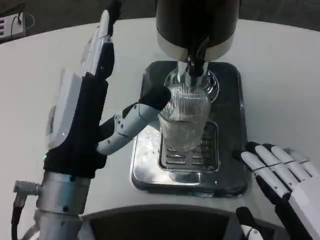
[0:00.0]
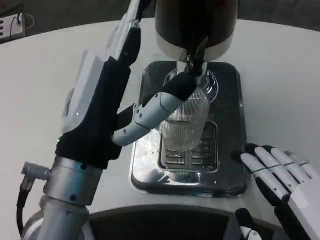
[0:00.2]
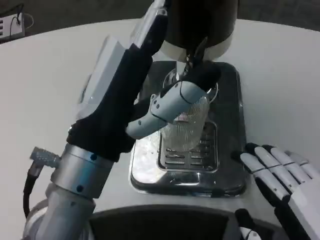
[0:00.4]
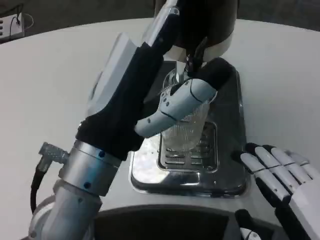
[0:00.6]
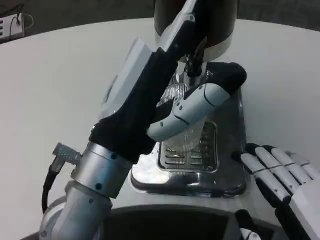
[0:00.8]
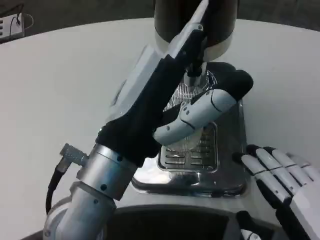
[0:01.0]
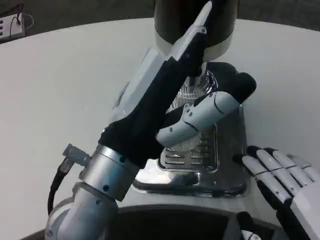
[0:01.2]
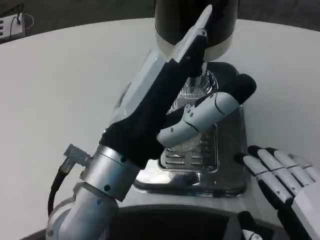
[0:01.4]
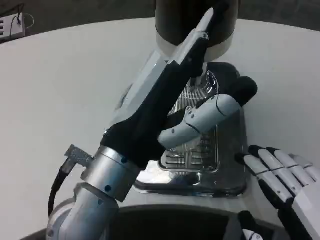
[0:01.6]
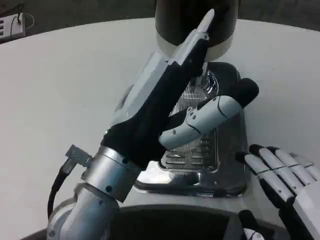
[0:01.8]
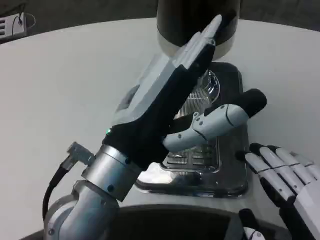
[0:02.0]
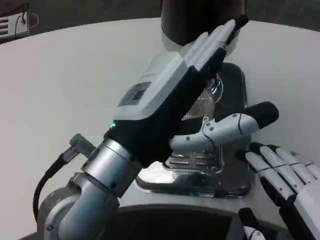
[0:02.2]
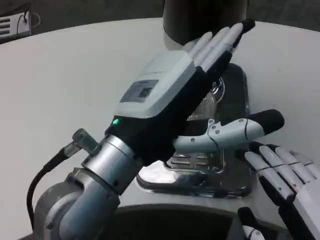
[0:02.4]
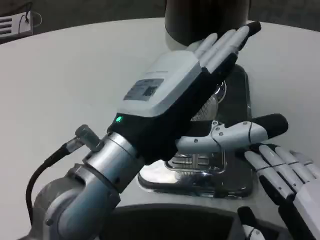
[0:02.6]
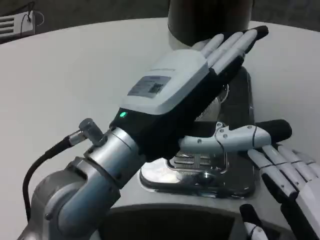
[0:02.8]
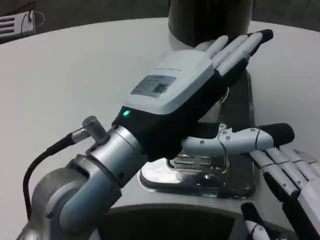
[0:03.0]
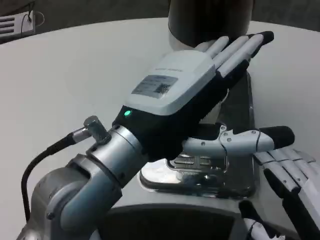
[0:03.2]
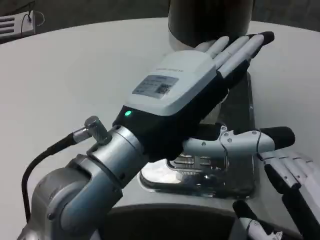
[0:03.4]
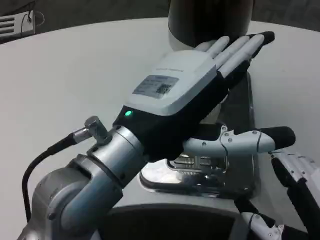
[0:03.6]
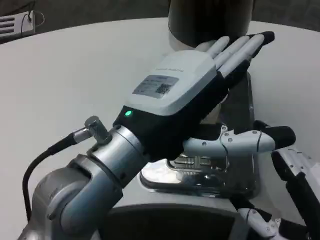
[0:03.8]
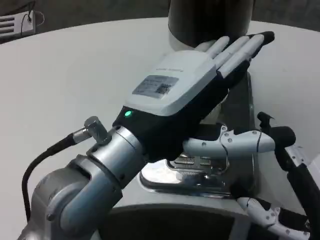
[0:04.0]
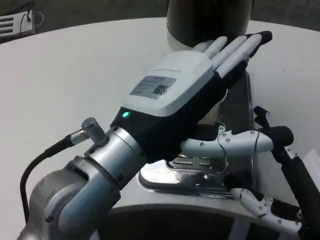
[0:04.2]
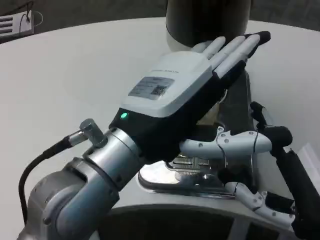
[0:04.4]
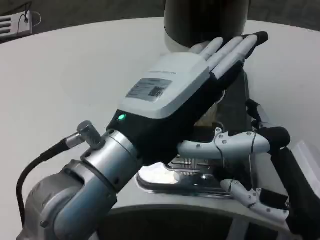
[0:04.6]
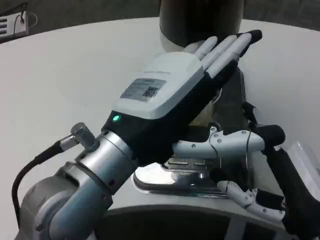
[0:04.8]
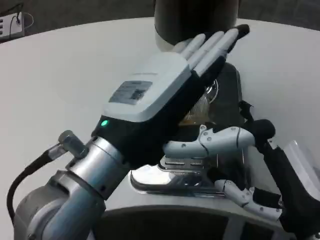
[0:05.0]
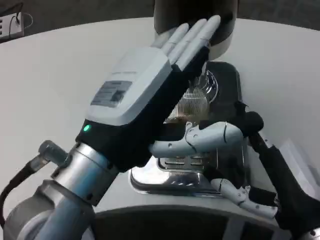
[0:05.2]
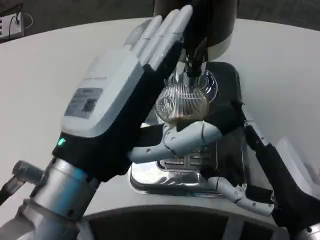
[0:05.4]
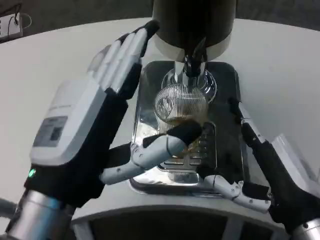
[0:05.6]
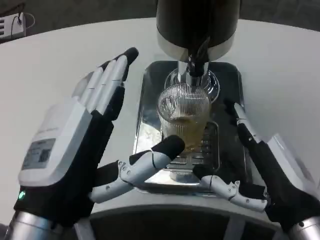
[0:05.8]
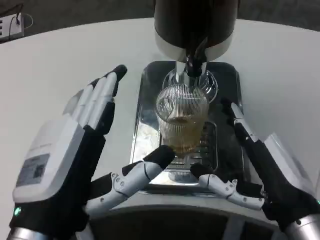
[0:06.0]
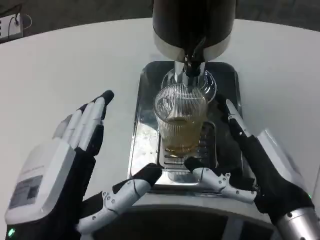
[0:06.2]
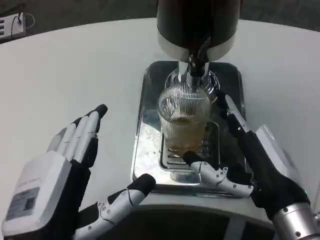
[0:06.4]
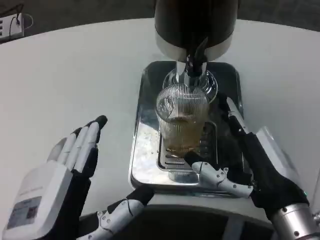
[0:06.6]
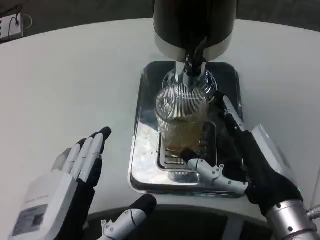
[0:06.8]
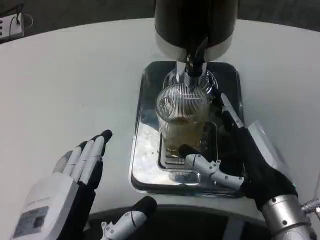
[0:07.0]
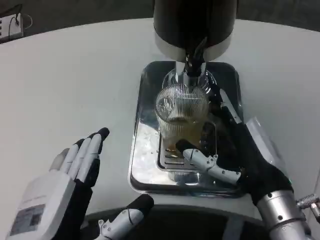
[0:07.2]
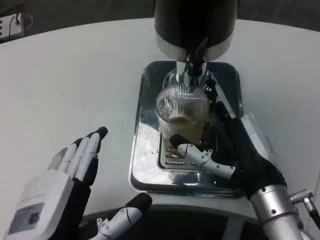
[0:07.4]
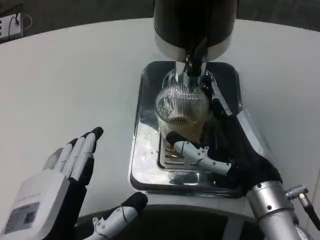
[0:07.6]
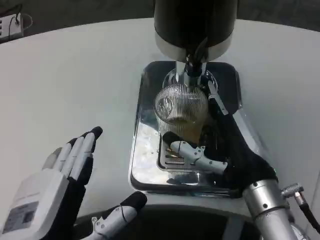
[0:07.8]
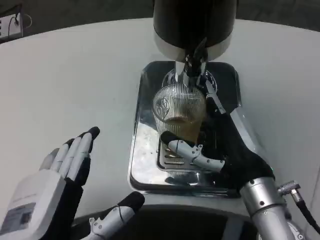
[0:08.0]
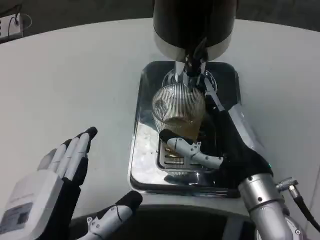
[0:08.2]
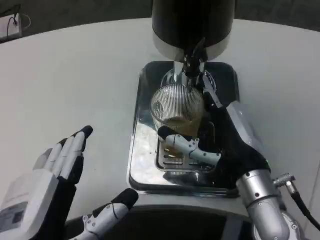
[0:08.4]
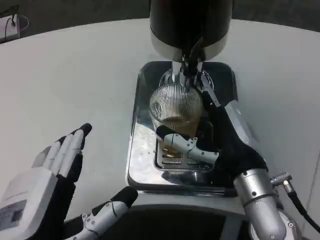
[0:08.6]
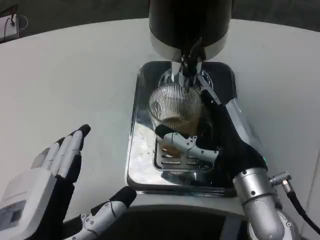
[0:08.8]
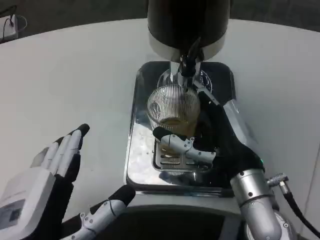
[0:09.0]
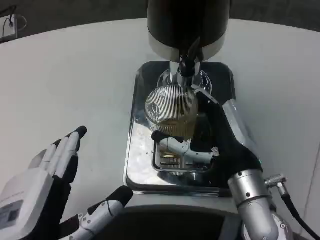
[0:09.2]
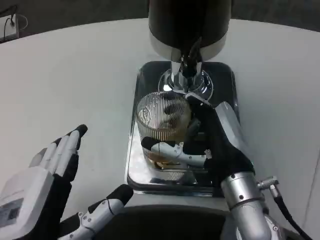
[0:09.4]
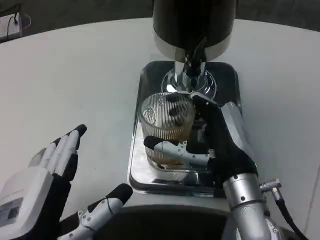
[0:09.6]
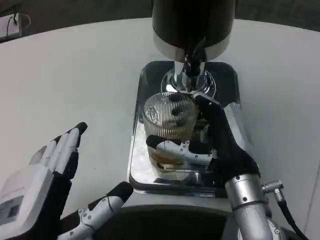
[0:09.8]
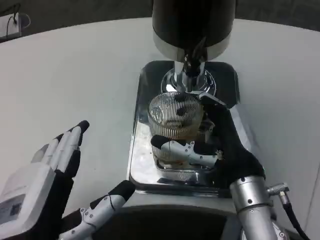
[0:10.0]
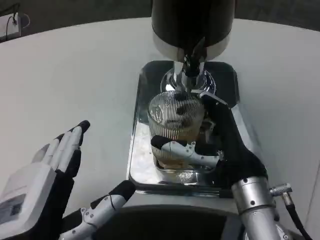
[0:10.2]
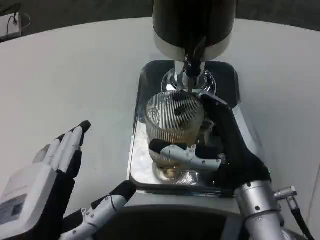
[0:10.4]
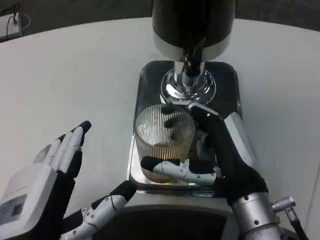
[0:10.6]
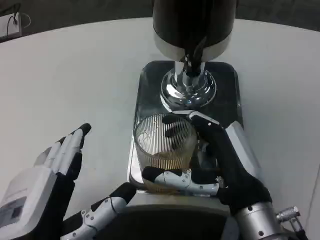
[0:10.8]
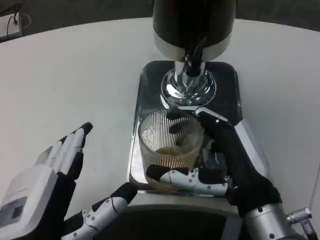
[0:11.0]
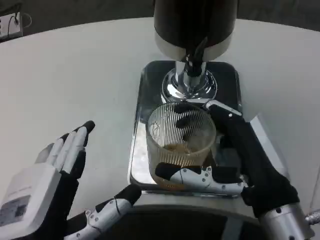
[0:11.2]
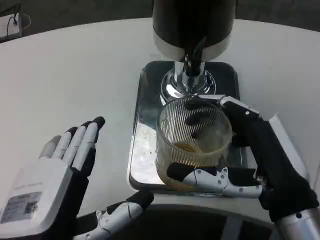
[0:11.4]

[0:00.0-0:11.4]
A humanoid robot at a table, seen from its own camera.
Task of the whole recording: Grasp the cup under the faucet to collect the drink, then remove the cup.
0:00.0 to 0:01.4: The left hand ends up some 5 cm from where it was.
0:02.8 to 0:04.2: The right hand shifts by approximately 5 cm.
0:04.2 to 0:05.6: The left hand heads downward, covering some 5 cm.
0:05.6 to 0:07.2: The right hand changes place by about 5 cm. Meanwhile the left hand goes roughly 5 cm downward.
0:08.6 to 0:10.0: The hands make only small movements.
0:10.0 to 0:11.4: The right hand travels backward by roughly 10 cm.

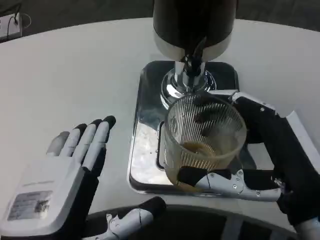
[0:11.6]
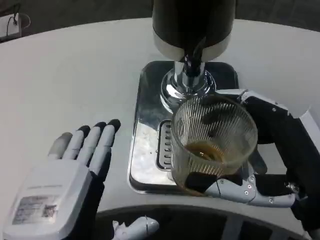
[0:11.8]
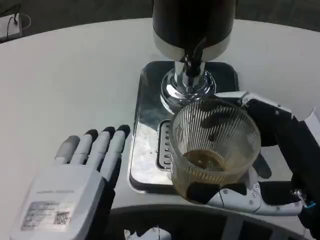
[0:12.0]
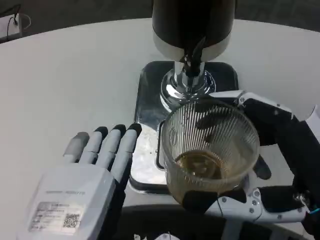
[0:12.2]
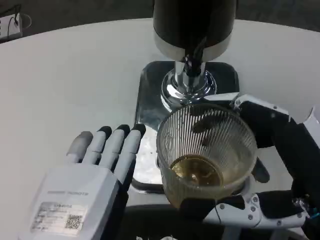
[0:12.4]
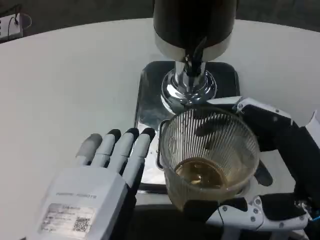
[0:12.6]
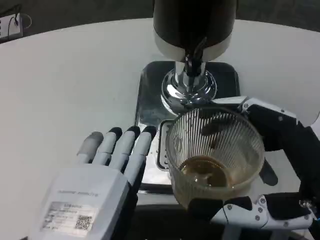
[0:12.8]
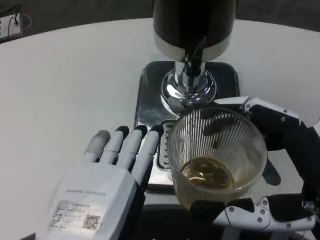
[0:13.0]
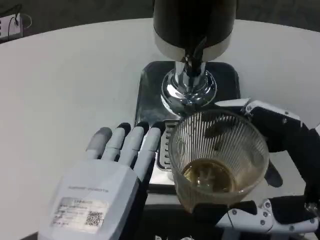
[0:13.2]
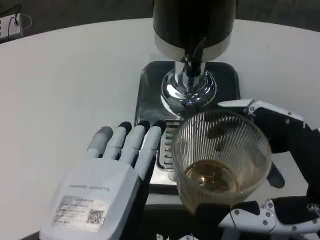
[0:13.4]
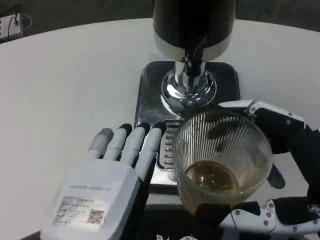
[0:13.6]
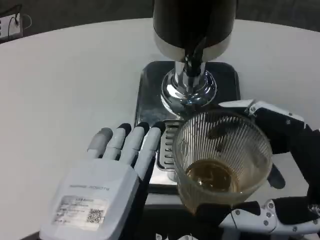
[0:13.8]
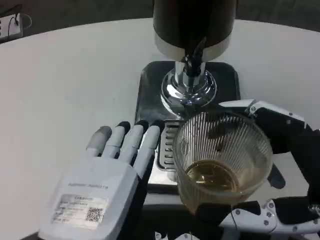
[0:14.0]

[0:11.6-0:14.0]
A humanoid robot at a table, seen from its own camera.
Task of the whole recording: Grasp the cup under the faucet to collect the drink, then remove the cup.
0:12.8 to 0:14.0: Neither hand changes place.

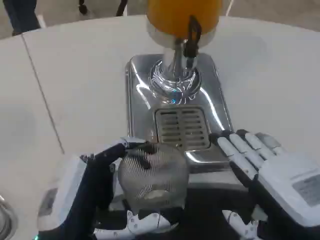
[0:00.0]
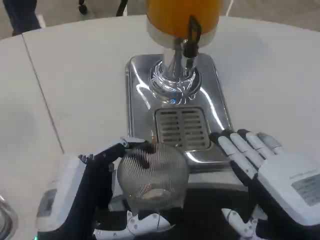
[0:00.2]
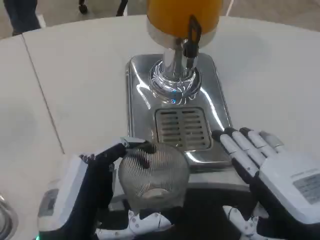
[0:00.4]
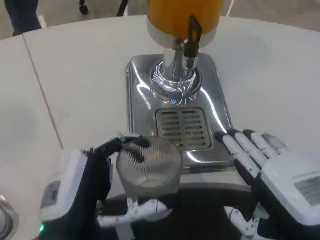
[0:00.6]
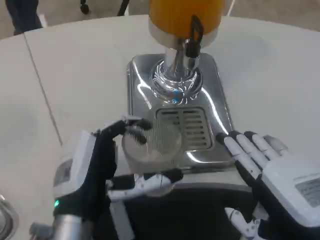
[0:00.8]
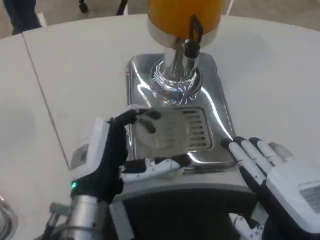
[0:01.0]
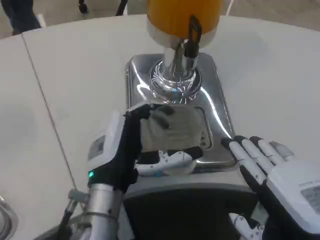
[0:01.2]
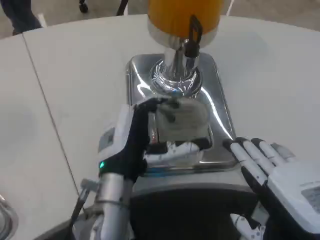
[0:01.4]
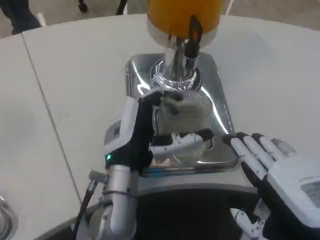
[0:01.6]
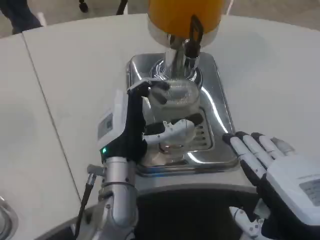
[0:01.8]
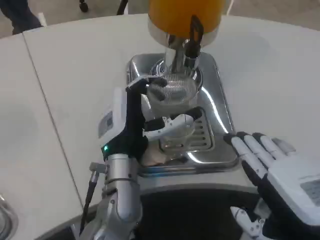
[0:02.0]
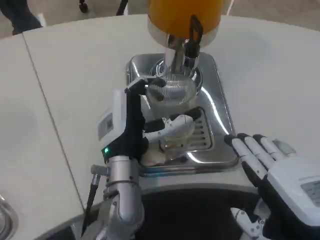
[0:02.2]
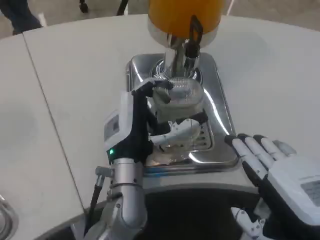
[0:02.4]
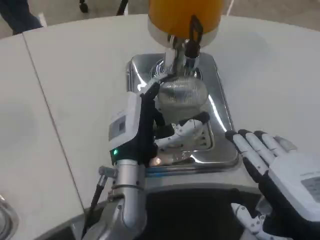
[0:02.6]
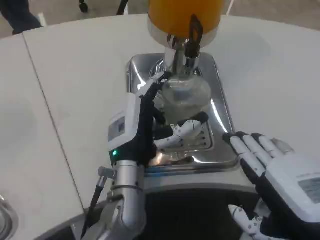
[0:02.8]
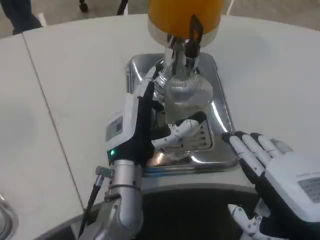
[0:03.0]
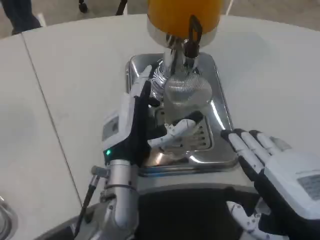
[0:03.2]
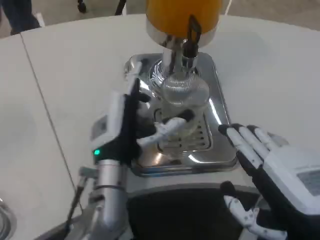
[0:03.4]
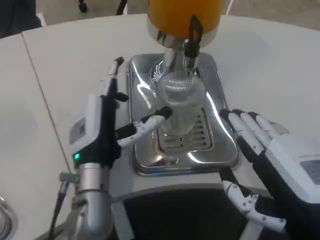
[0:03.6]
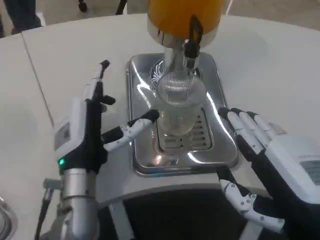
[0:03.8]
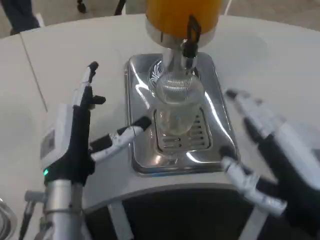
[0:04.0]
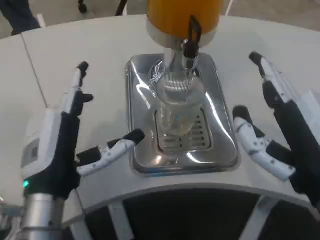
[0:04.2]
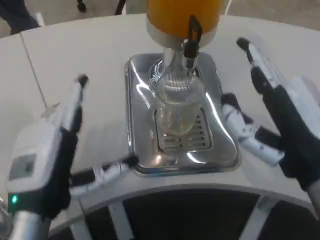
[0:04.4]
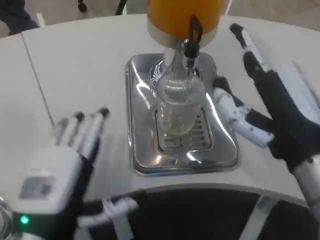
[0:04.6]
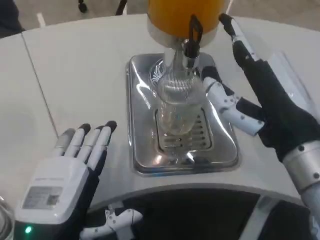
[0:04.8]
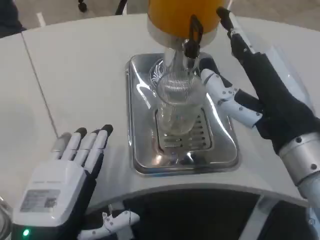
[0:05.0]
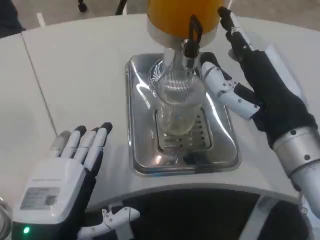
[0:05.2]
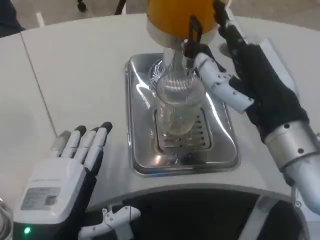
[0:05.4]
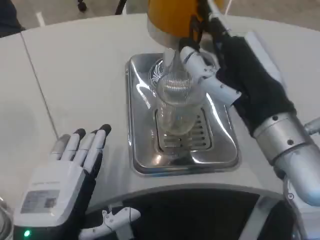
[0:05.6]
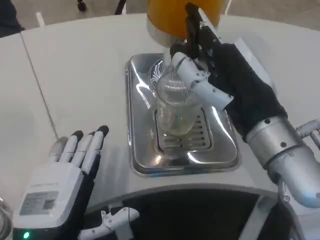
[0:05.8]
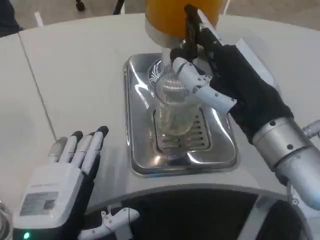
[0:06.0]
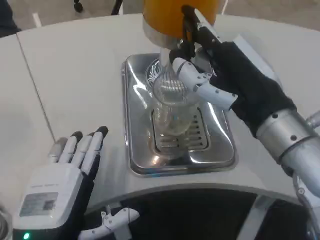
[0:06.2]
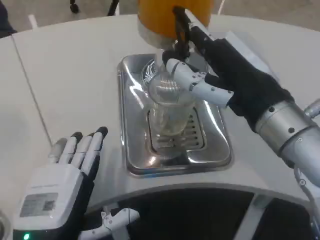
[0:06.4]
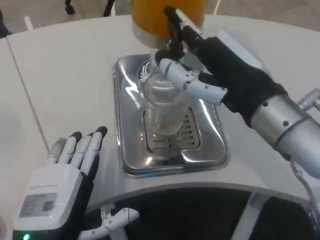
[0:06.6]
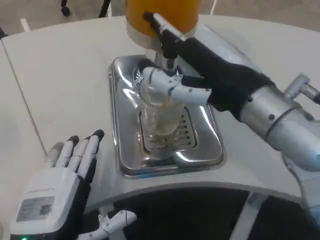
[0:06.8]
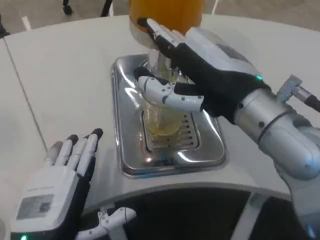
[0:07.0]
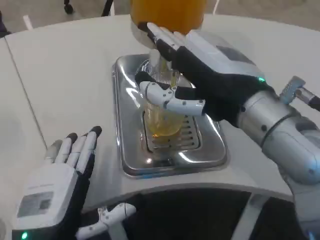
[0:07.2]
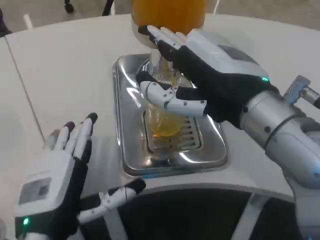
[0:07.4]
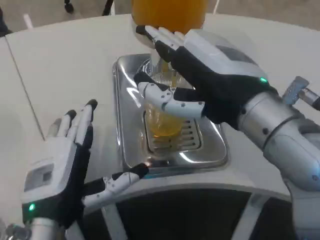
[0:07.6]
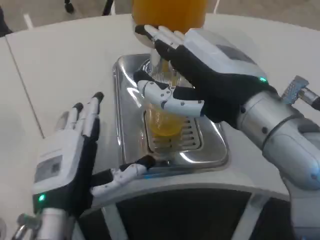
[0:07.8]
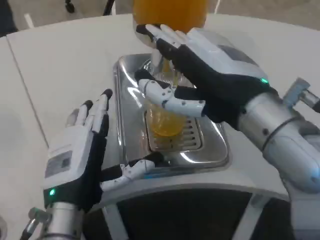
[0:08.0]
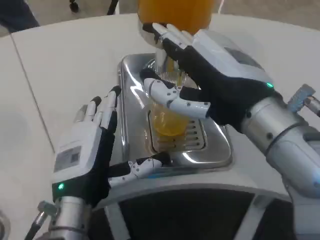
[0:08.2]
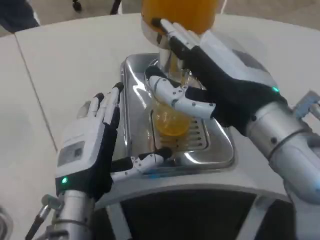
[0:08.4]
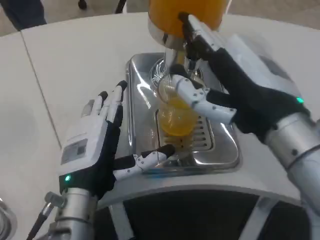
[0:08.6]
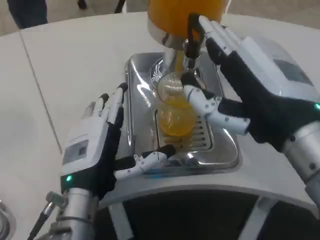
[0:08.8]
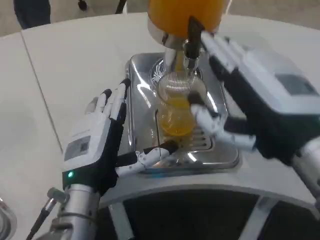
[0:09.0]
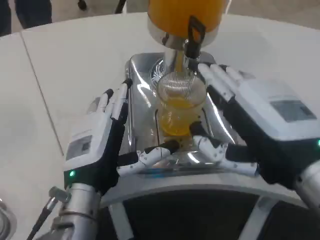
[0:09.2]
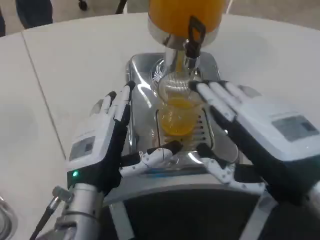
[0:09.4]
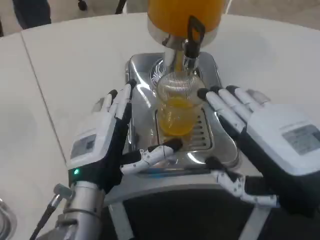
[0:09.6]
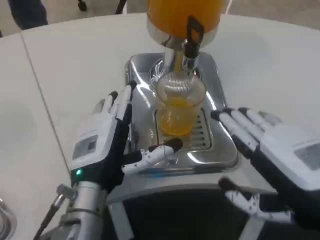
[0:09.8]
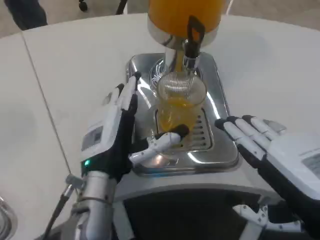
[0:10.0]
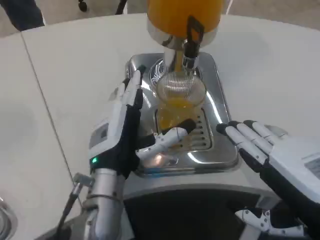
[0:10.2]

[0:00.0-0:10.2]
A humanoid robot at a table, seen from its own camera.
Task of the whole recording: Grasp the cup under the faucet to collect the drink, then remove the cup.
0:00.0 to 0:01.4: The left hand goes roughly 15 cm forward and to the right.
0:01.4 to 0:03.0: The hands make only small movements.
0:03.0 to 0:04.4: The right hand changes place by approximately 5 cm. The left hand is displaced backward and to the left by about 15 cm.
0:04.4 to 0:05.8: The right hand travels forward by about 5 cm.
0:07.2 to 0:08.8: The left hand goes about 10 cm forward. The right hand ends up some 5 cm from where it was.
0:08.8 to 0:10.2: The right hand is displaced to the right and downward by approximately 10 cm.
